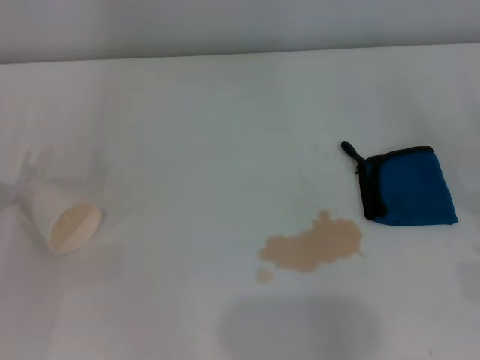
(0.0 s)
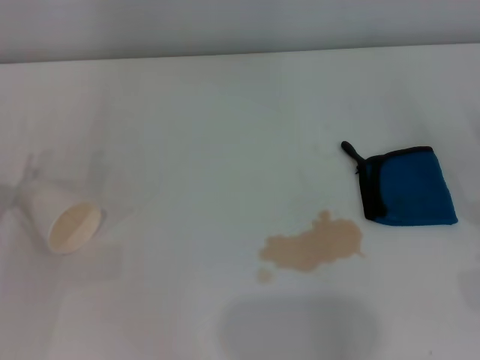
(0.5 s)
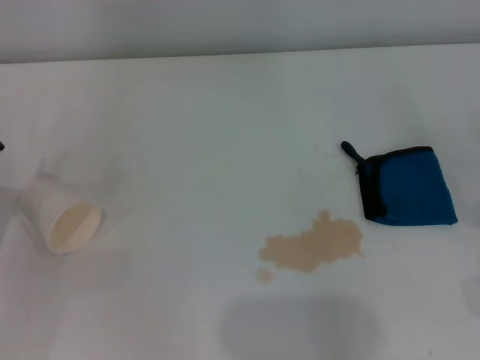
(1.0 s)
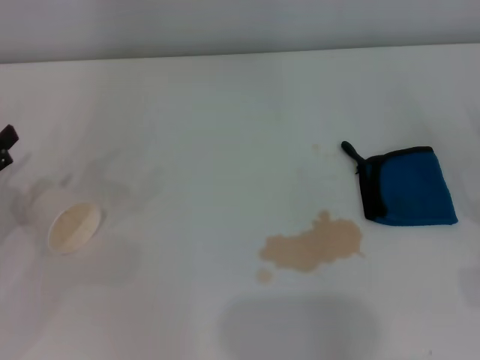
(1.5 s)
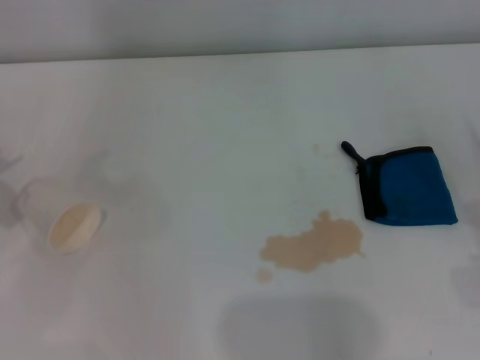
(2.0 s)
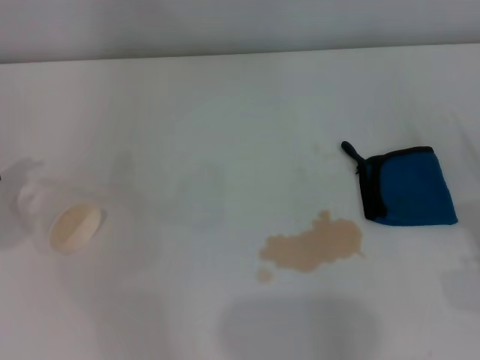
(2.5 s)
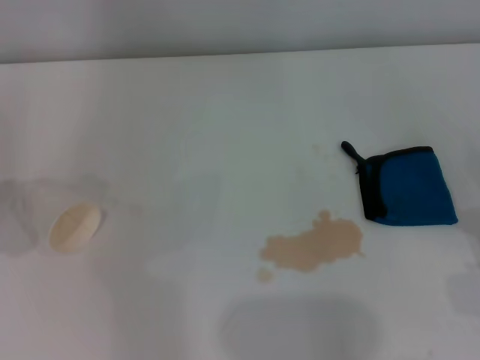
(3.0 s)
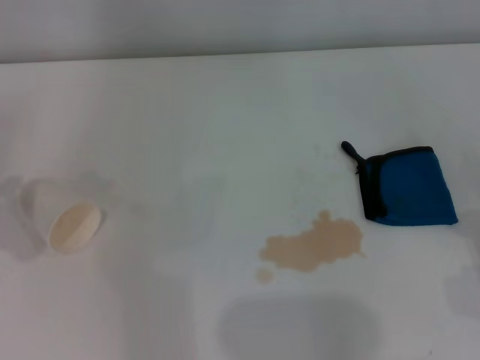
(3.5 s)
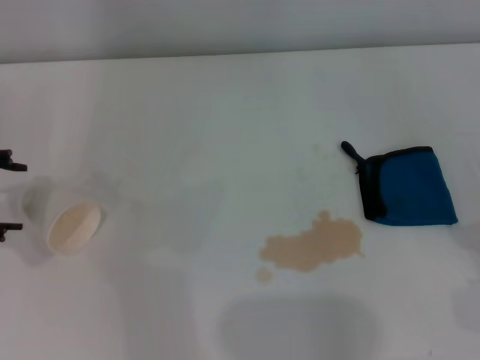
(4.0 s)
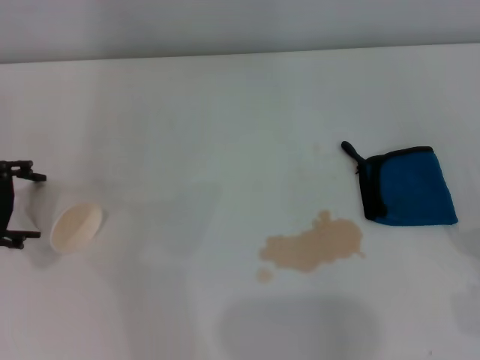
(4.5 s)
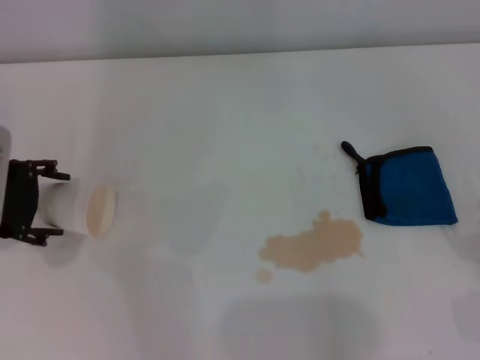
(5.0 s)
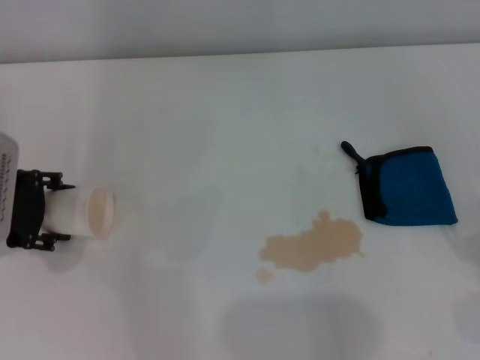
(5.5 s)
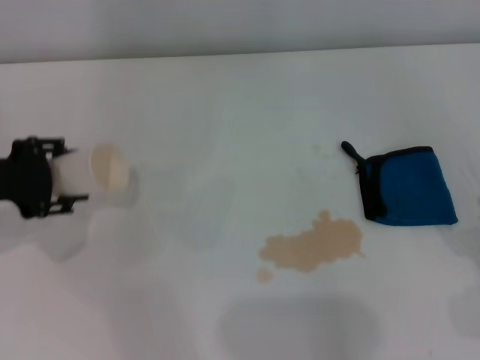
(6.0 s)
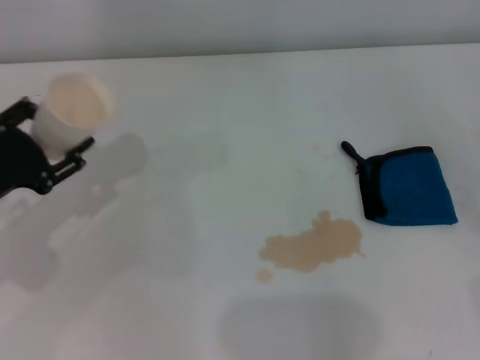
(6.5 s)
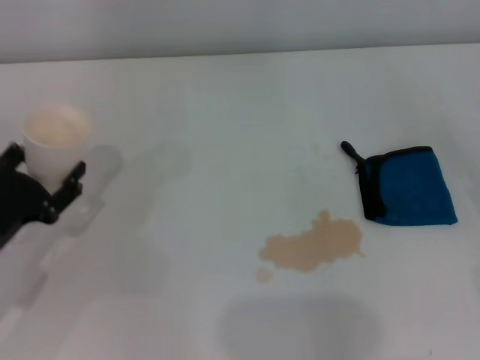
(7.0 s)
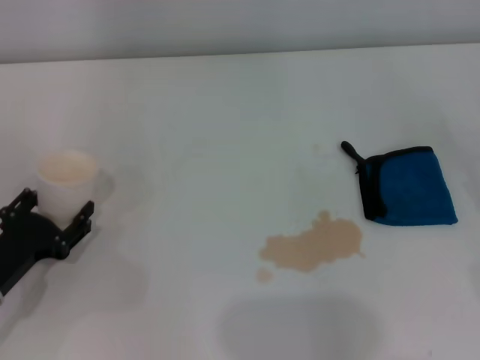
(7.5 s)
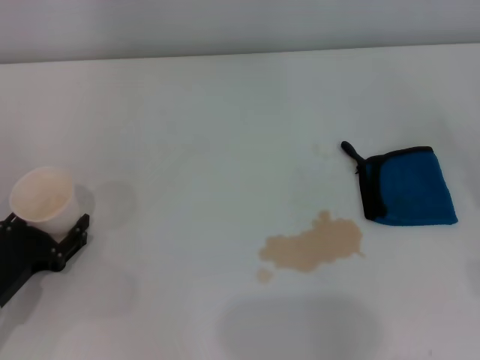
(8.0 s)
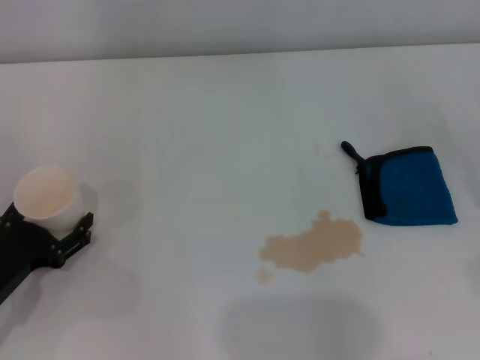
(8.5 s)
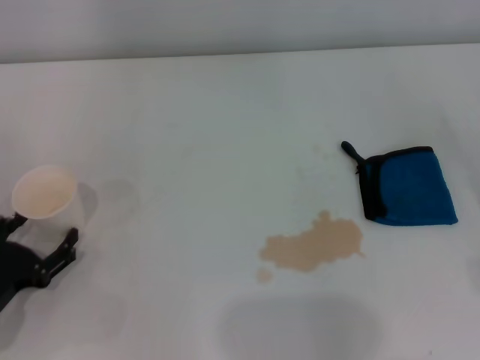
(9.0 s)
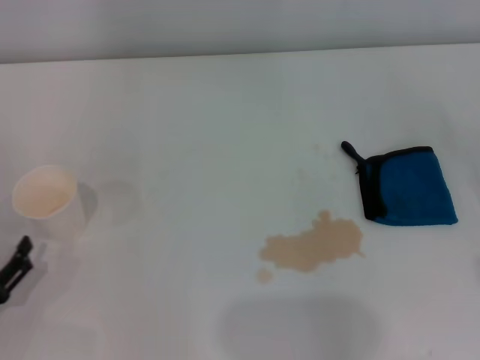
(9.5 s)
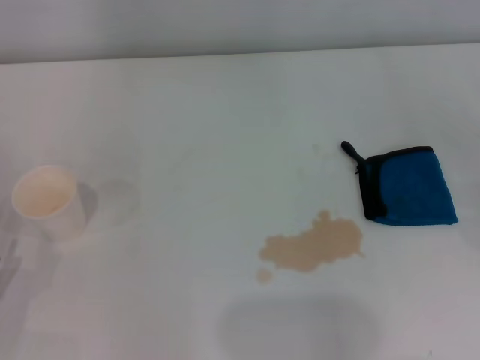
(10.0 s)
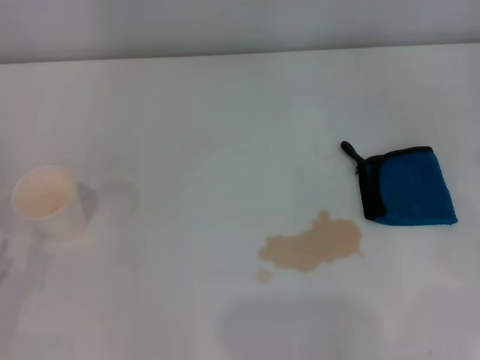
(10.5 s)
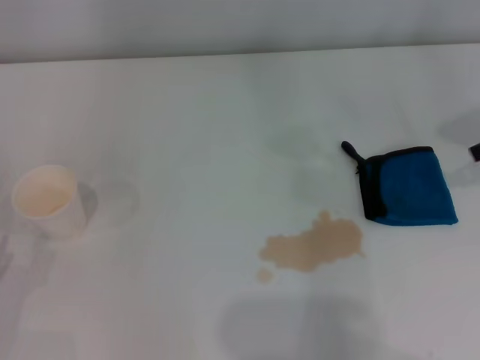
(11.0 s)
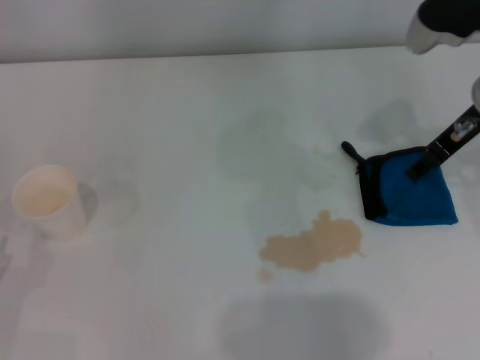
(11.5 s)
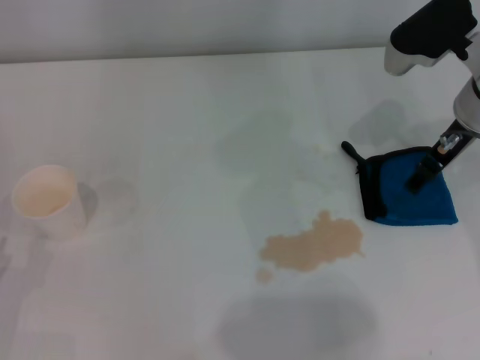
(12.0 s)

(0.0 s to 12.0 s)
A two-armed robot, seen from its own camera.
Step, 0.0 s - 5.5 s: Grasp the paper cup with the left gripper.
Step, 6.0 s - 8.5 s: Stand the paper cup upright with the left gripper.
4.0 s - 6.0 s: The left gripper closes.
6.0 s - 8.0 s: The left gripper goes about 15 cm downward and backward.
8.0 s - 10.0 s: The left gripper shifts roughly 5 cm backward, and opens its fingers.
10.0 s - 12.0 s: The right gripper shifts roughly 30 cm to the left and forward.

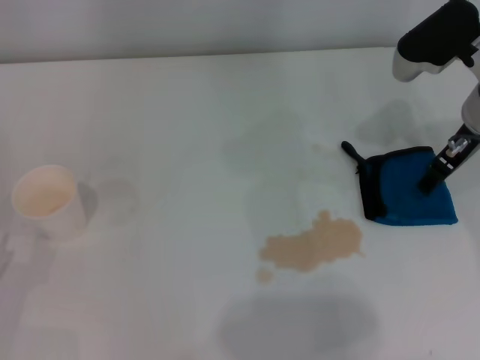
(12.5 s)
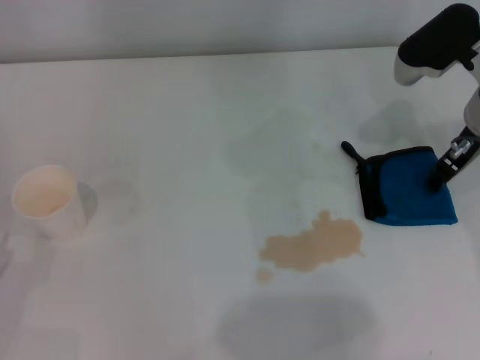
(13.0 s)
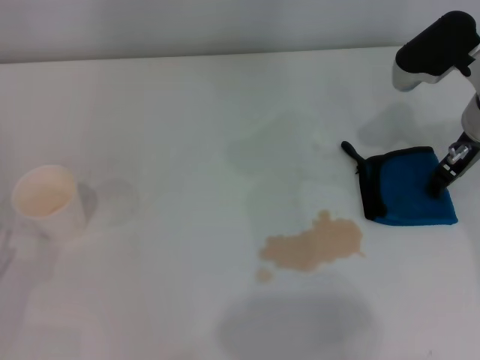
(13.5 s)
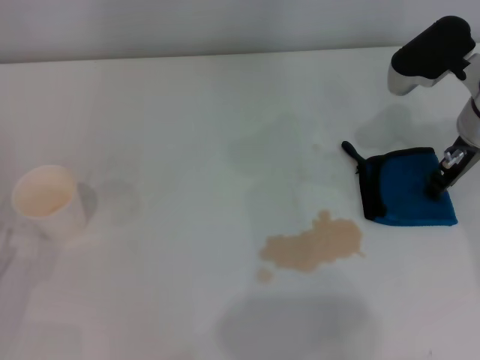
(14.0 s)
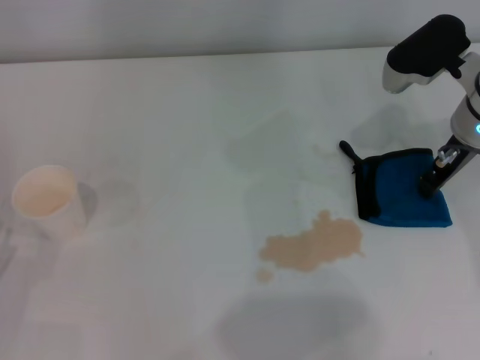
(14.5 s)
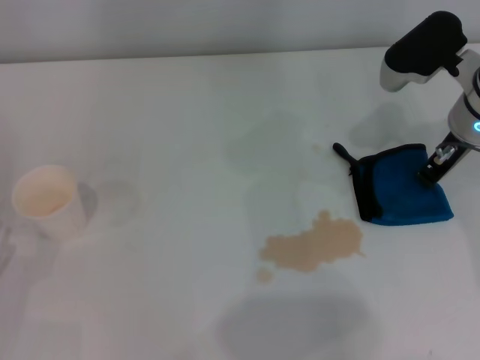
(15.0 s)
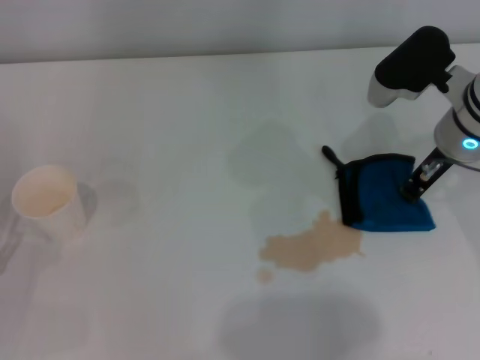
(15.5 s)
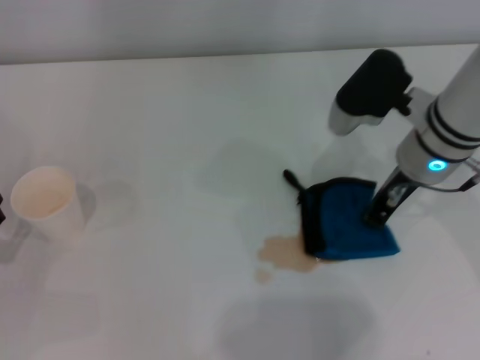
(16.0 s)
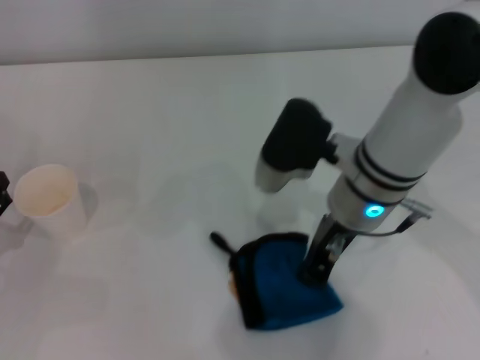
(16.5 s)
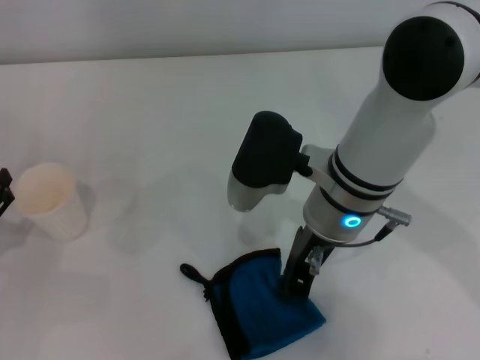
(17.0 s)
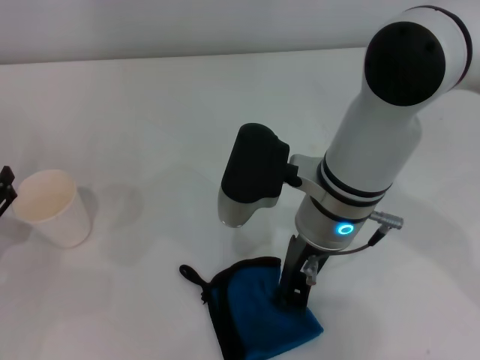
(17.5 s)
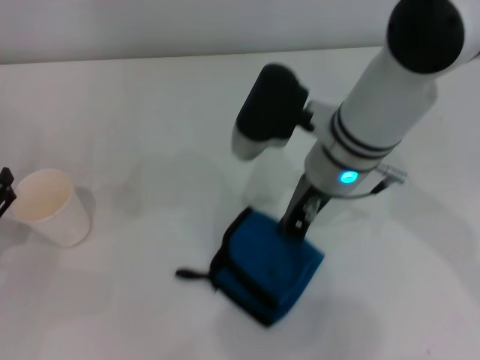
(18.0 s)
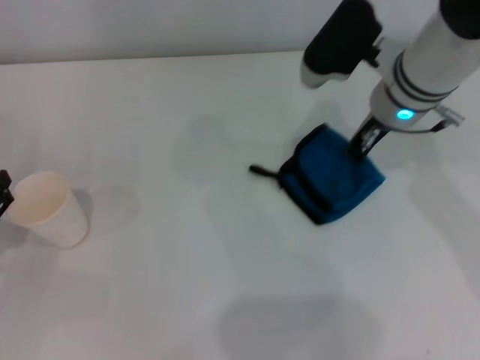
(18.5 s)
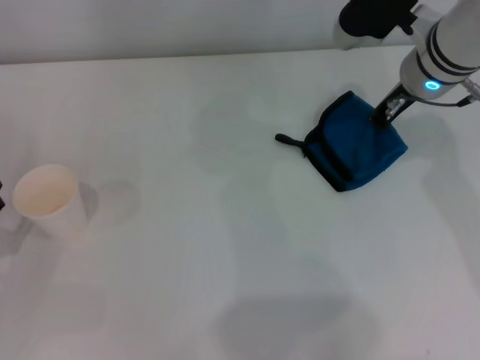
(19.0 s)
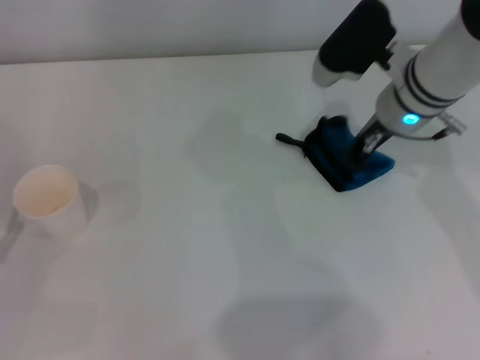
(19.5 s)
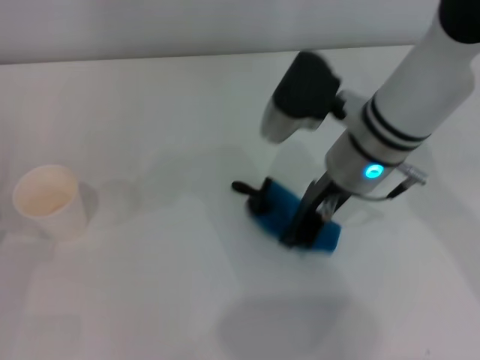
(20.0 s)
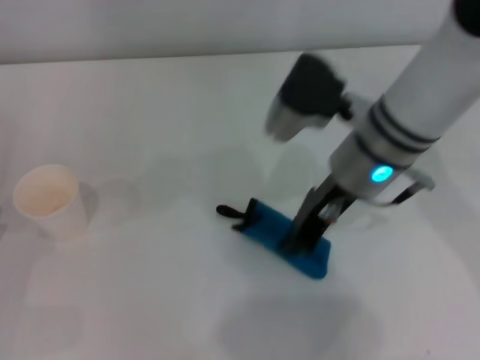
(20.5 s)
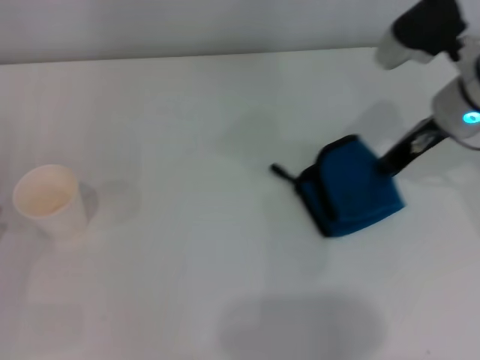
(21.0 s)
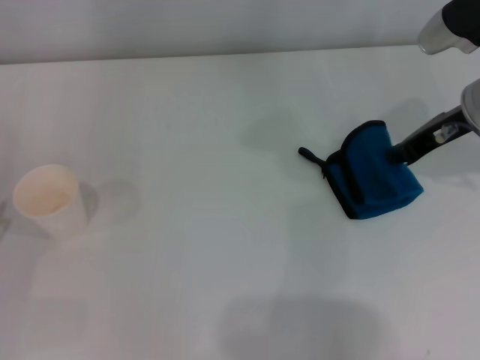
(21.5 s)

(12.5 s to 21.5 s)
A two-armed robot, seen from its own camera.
12.5 s - 14.5 s: The right gripper closes up.
14.5 s - 17.0 s: The right gripper is displaced to the left and backward by roughly 15 cm, and closes its fingers. The left gripper moves forward, some 5 cm.
17.0 s - 19.5 s: The right gripper is displaced to the right and forward by about 15 cm.
19.5 s - 21.5 s: The right gripper goes some 10 cm to the right.

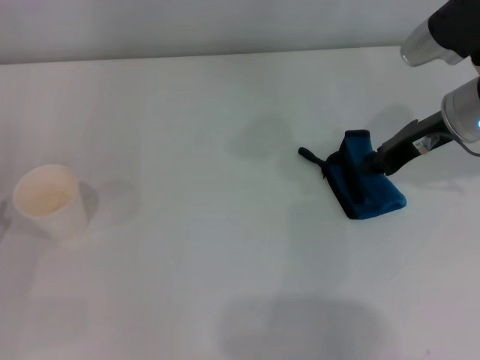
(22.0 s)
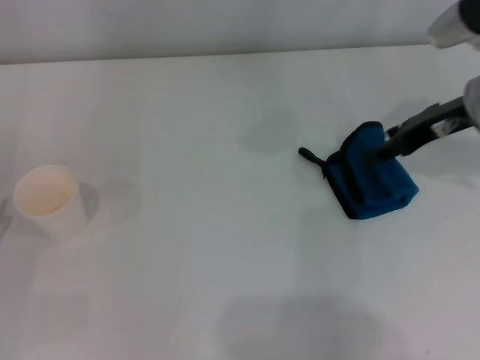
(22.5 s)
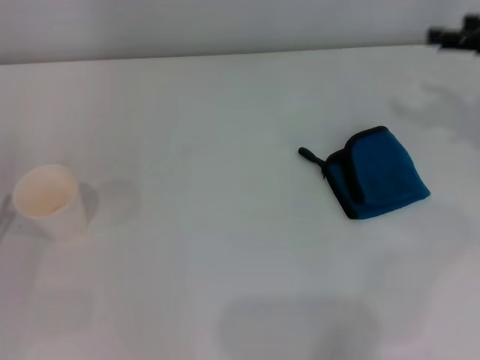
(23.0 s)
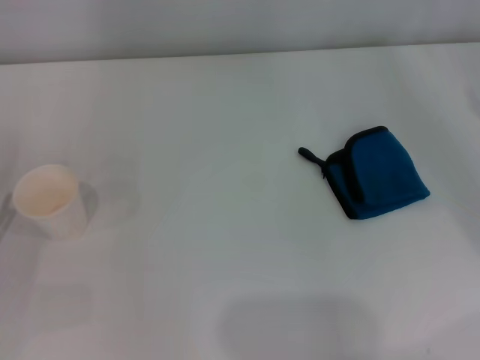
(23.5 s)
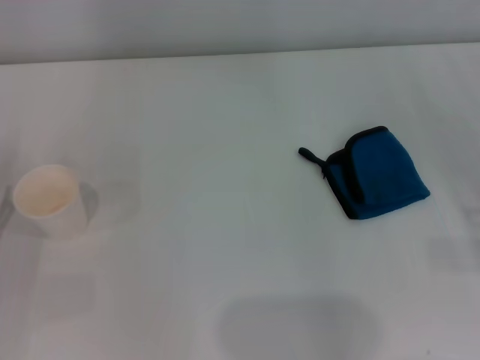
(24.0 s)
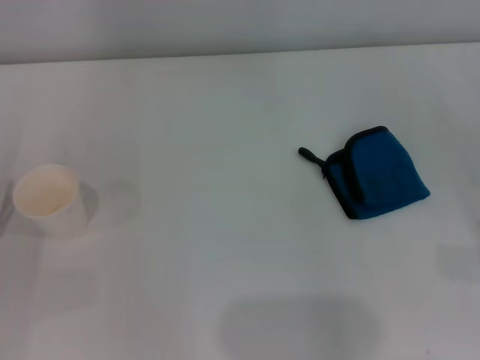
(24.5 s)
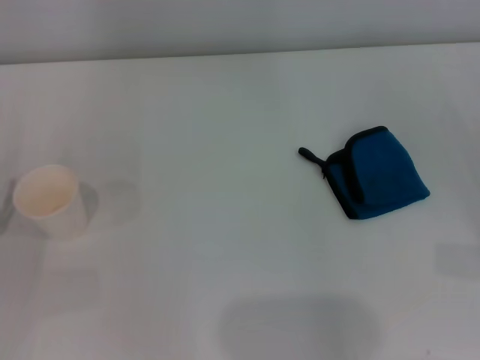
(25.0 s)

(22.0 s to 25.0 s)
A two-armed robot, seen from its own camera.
Step, 22.0 s - 22.5 s: Place the rag on the table with the right gripper.
22.0 s - 23.5 s: The right gripper travels to the right and backward by roughly 20 cm, and opens up.
